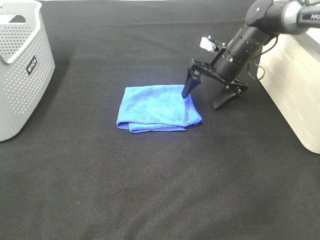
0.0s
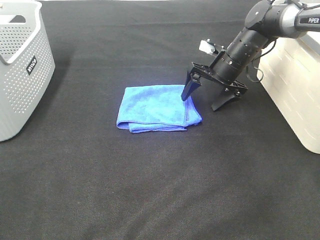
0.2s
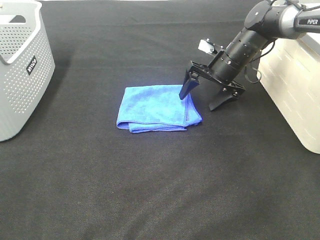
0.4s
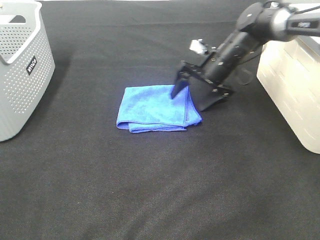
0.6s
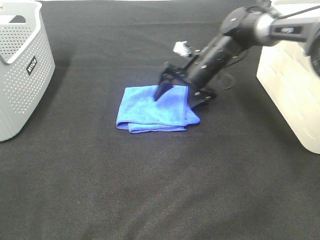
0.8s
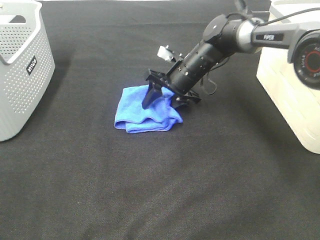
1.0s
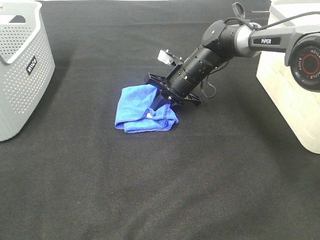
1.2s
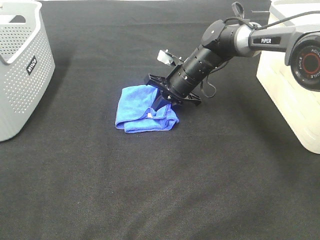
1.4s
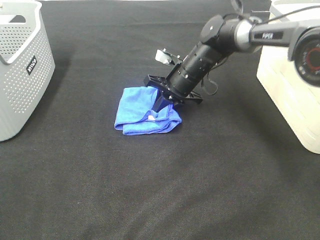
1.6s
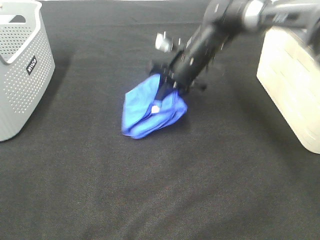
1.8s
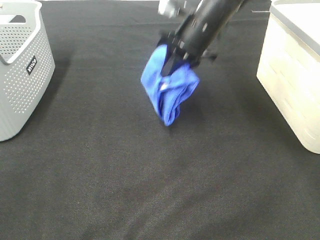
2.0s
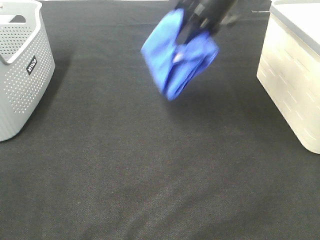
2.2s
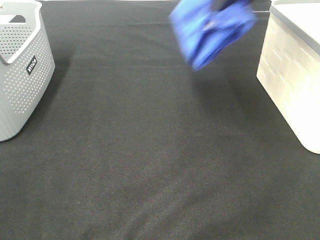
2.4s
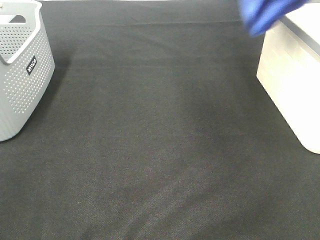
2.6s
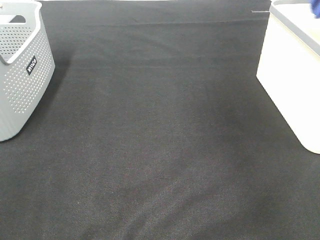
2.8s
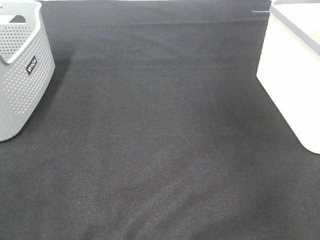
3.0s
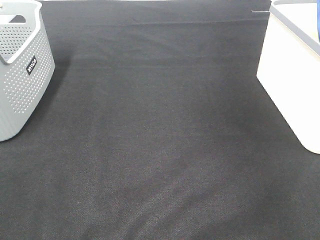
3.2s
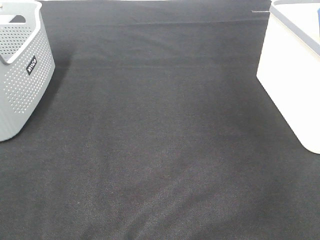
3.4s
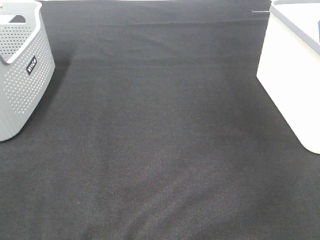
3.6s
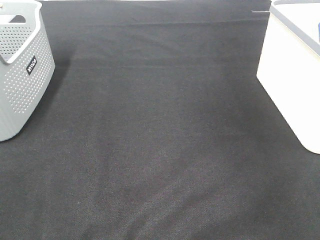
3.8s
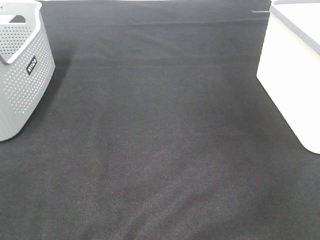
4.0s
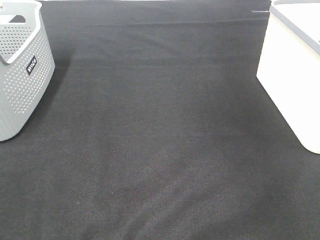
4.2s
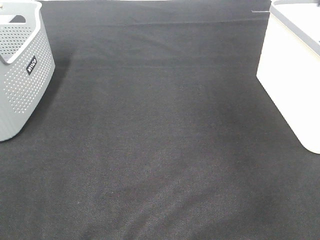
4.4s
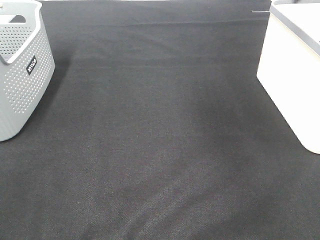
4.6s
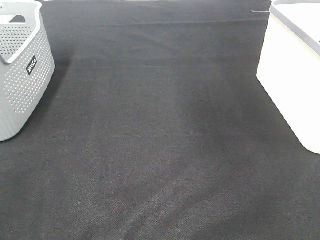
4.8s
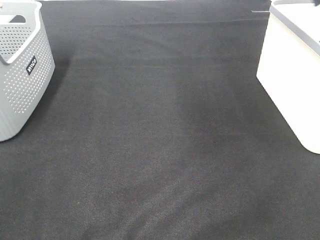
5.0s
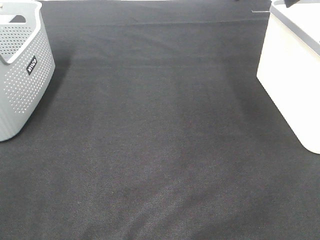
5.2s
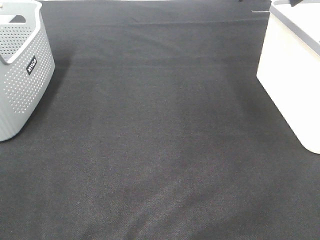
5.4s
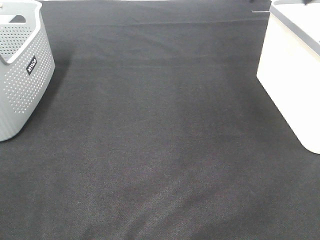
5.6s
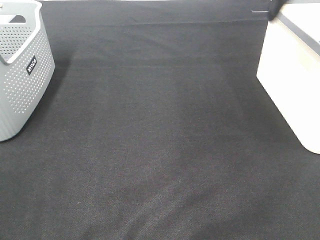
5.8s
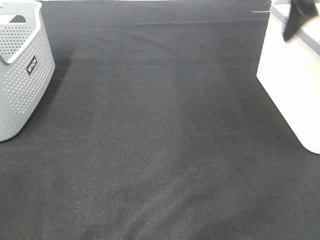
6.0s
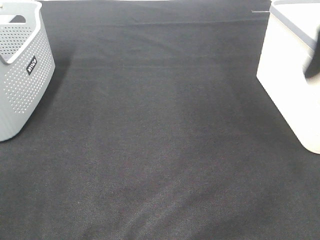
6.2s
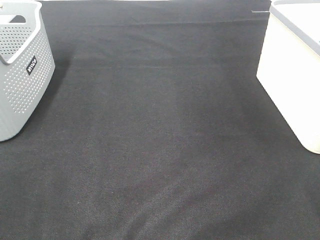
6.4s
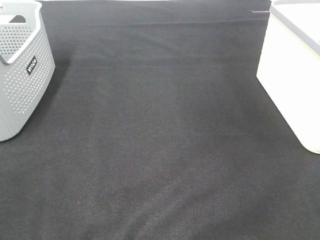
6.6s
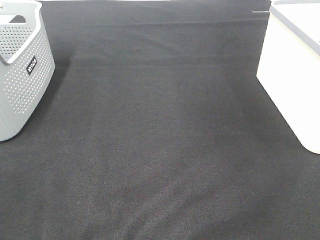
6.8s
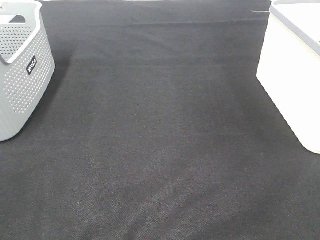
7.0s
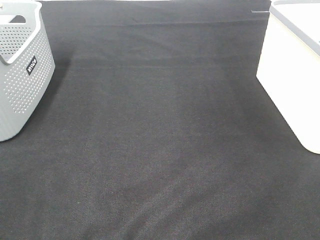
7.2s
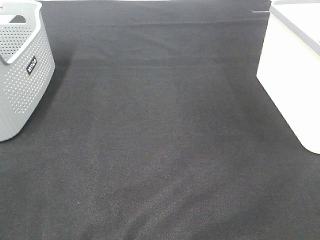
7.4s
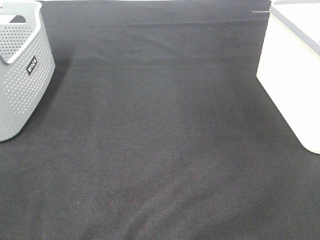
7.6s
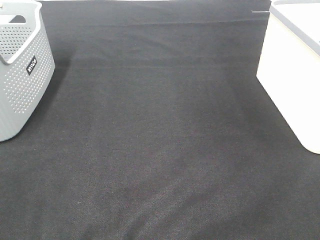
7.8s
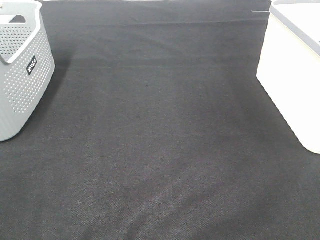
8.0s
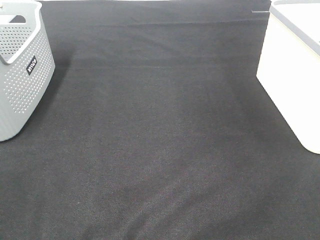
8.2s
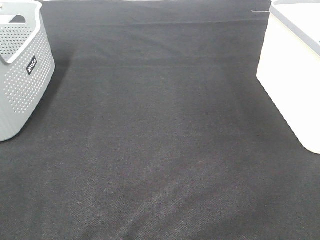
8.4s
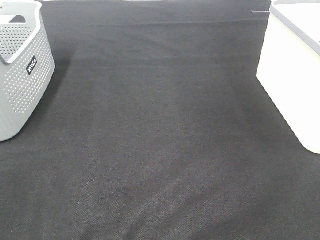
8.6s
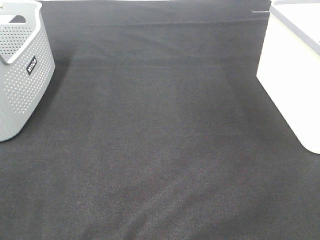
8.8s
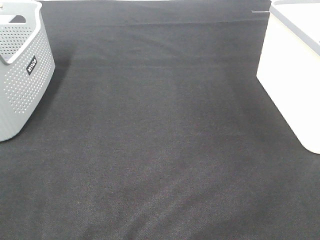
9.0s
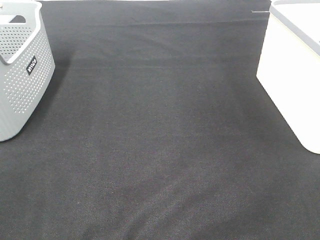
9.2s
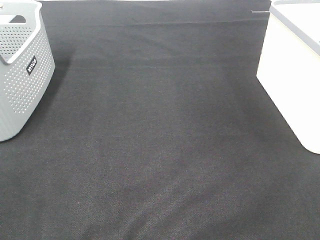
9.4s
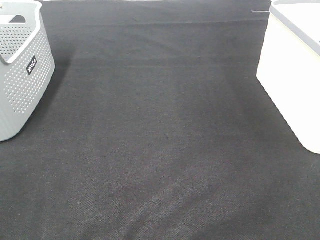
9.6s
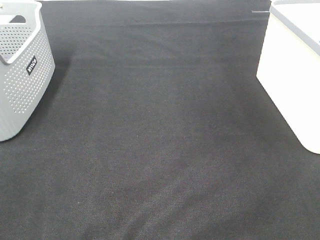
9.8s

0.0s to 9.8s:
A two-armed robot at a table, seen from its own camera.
Step, 1.4s to 4.0s: Right hand: place the blue towel in right basket.
0.0s to 1.4s: The right gripper is displaced to the left by some 10 cm, and closes.
1.4s to 2.8s: The right gripper goes roughly 40 cm upward and to the right.
8.4s to 9.8s: Neither gripper changes place.

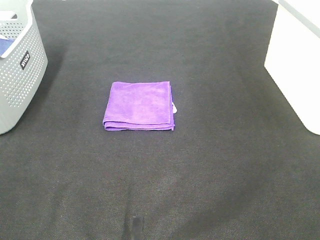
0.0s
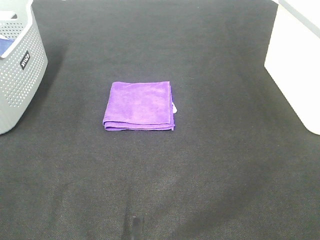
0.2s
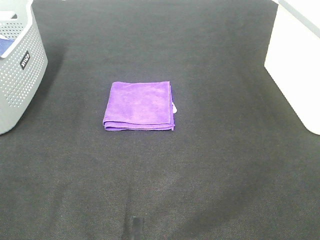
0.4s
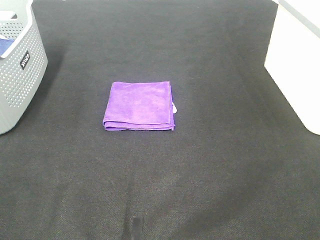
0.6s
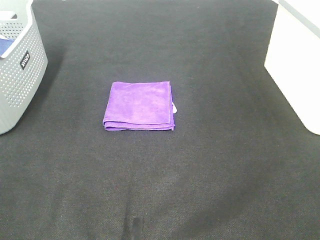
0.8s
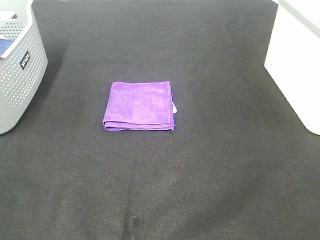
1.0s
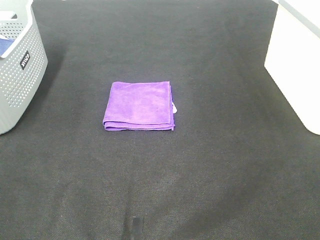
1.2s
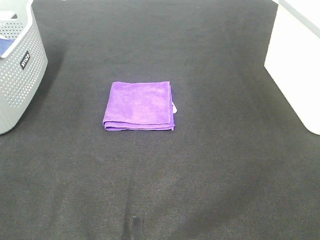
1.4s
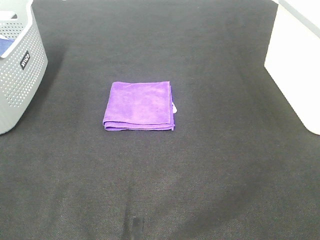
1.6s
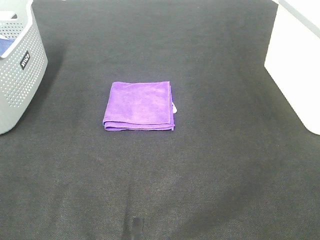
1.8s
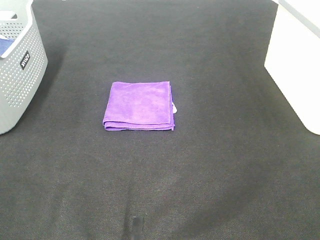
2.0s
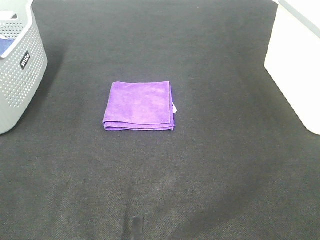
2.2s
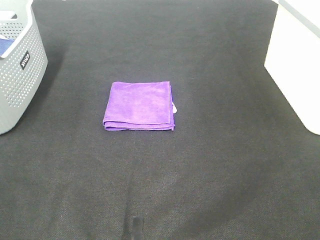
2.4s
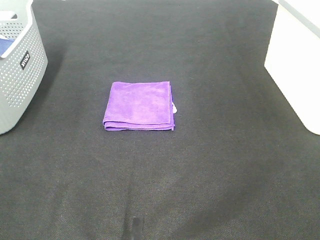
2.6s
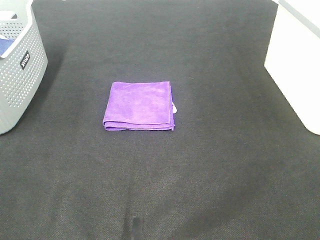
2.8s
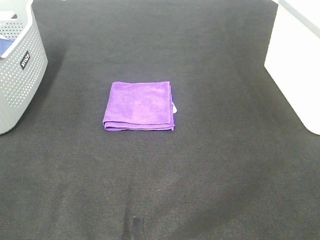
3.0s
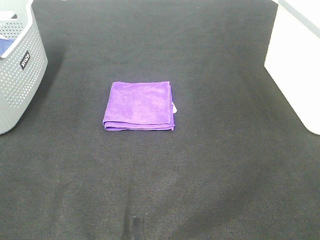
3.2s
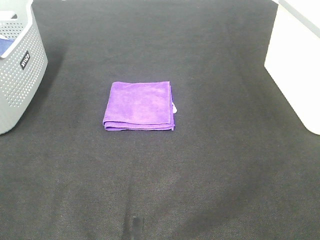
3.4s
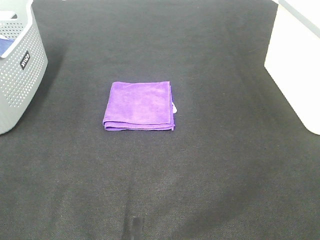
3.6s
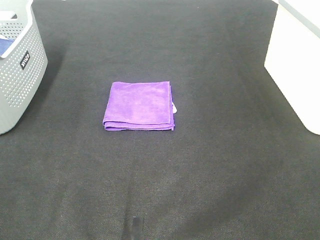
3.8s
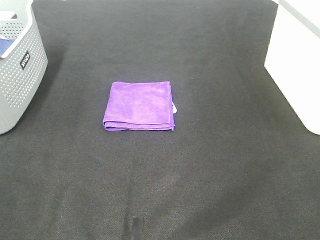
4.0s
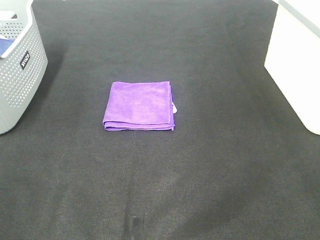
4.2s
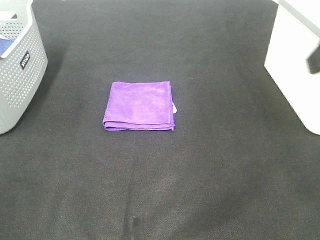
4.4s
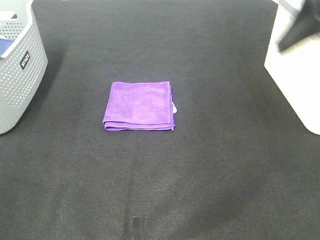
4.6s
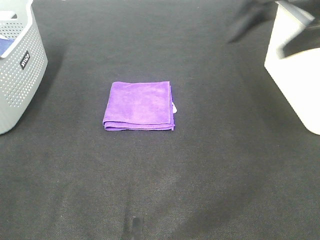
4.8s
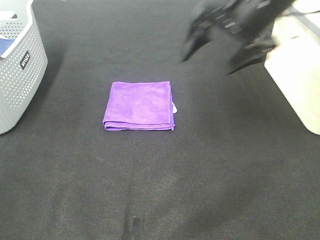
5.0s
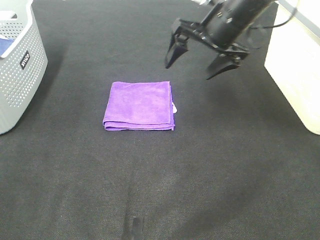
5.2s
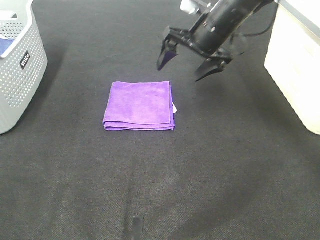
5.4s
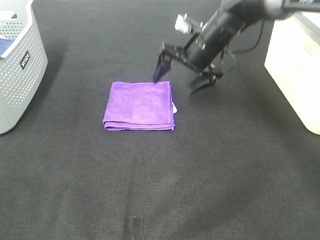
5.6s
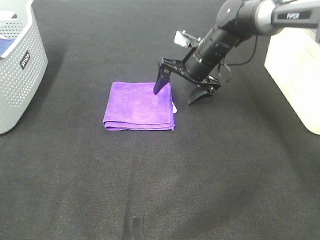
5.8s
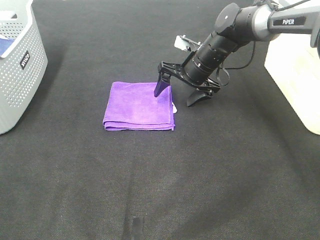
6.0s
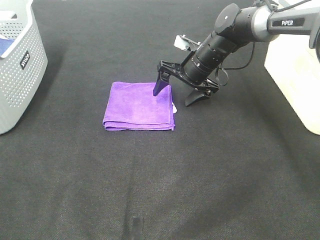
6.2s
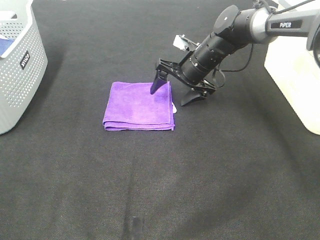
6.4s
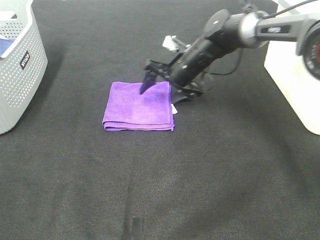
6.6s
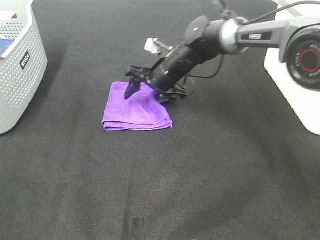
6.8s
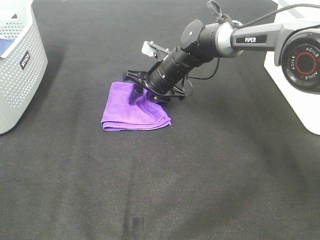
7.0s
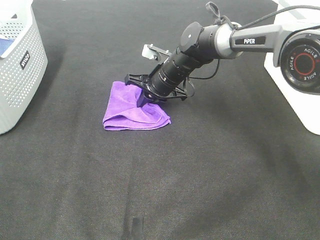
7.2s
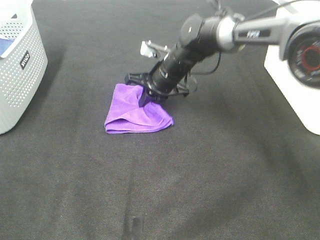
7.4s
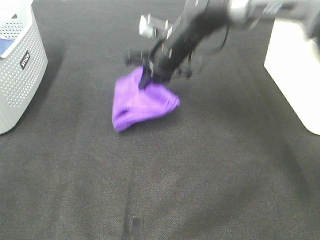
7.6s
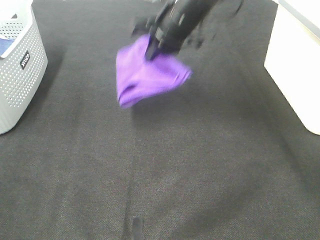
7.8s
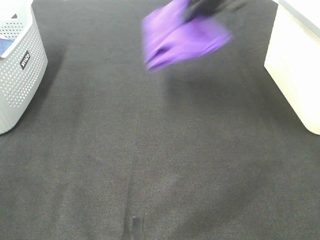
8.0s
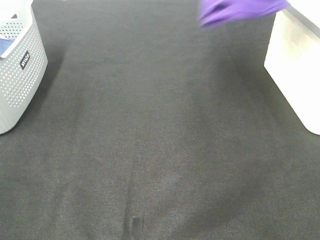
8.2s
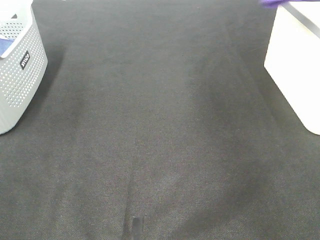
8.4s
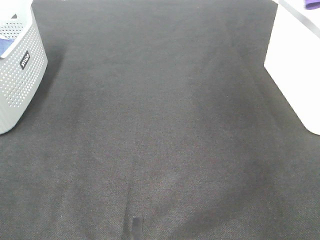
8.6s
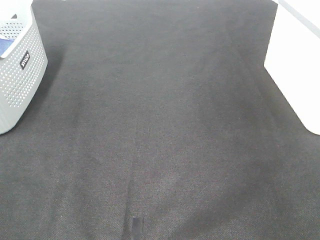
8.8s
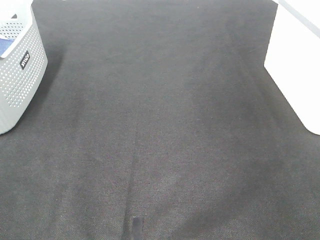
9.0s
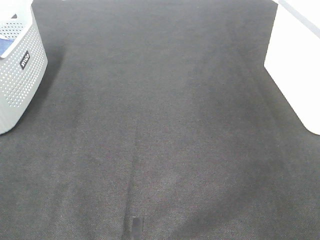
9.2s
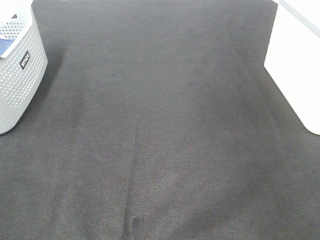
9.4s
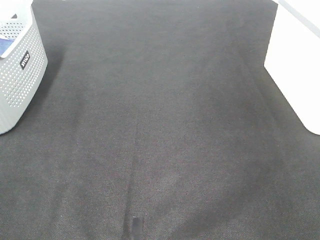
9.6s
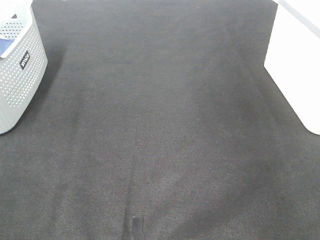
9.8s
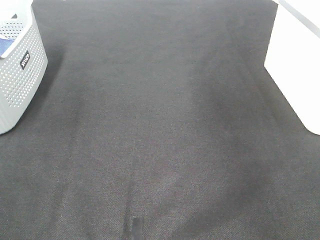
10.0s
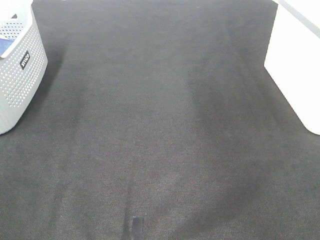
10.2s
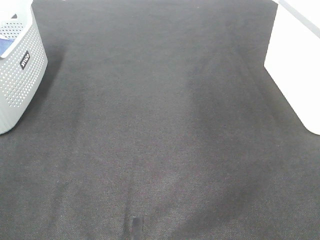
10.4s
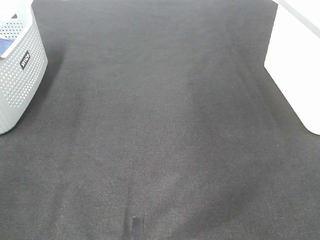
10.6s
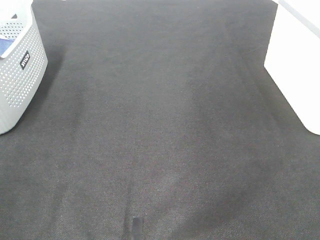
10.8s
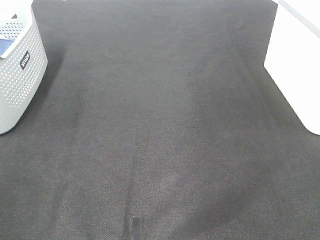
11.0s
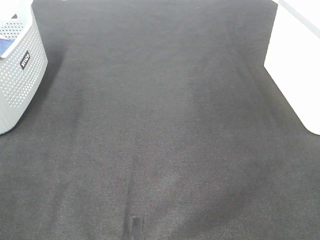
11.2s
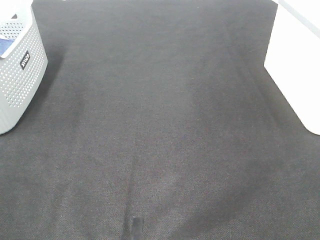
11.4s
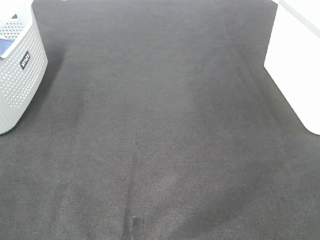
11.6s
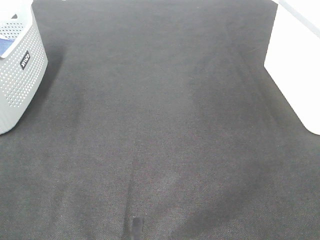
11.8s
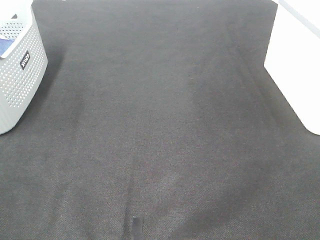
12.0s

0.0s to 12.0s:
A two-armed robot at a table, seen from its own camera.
Step, 0.0s to 7.0s: Right hand: grab the folded purple towel.
Step, 7.2s to 9.2s: Right hand: place the purple towel in right basket.
0.0s to 3.0s: The two grippers keep their place.
4.4s to 6.0s: The right gripper travels forward, downward and to the left by some 40 cm.
6.0s to 7.6s: The right gripper shifts about 10 cm upward and to the left, and closes its fingers.
7.6s to 9.0s: The right gripper travels to the right and upward by some 40 cm.

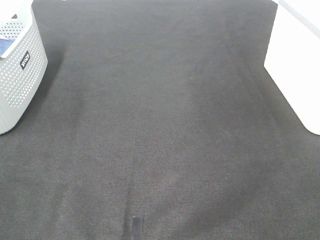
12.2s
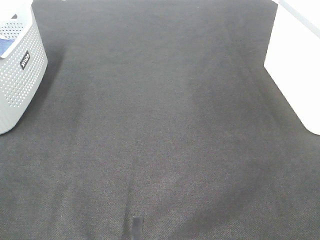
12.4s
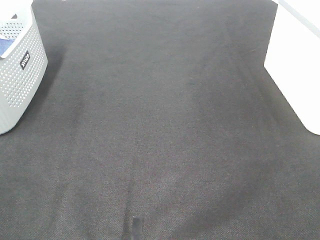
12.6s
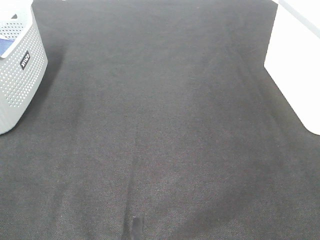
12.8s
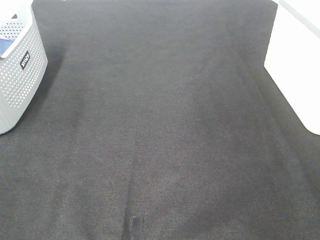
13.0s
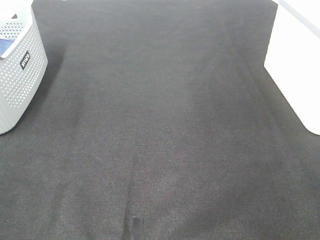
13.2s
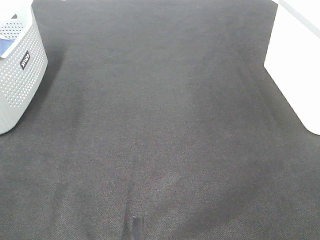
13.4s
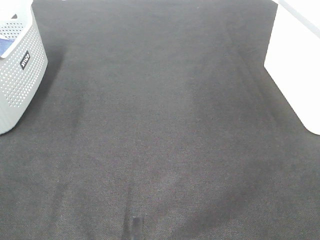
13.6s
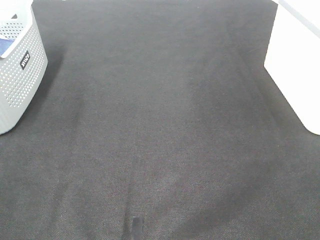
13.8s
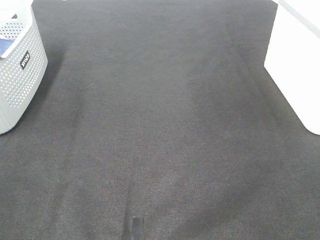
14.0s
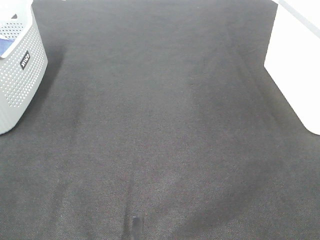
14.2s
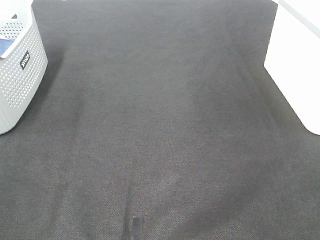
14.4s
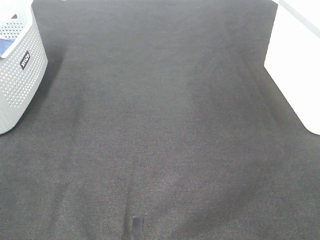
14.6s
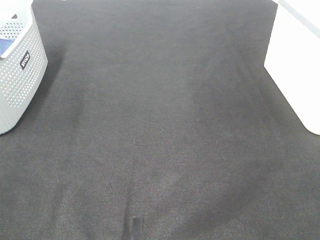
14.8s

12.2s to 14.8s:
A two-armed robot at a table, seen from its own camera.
12.2s to 14.8s: The two grippers keep their place.
